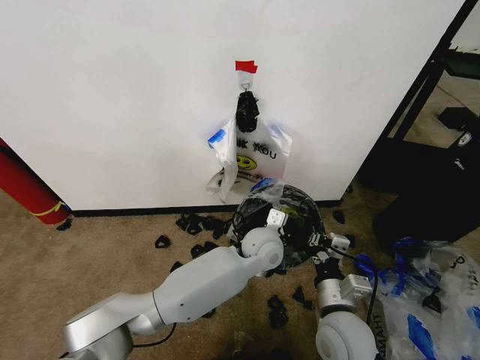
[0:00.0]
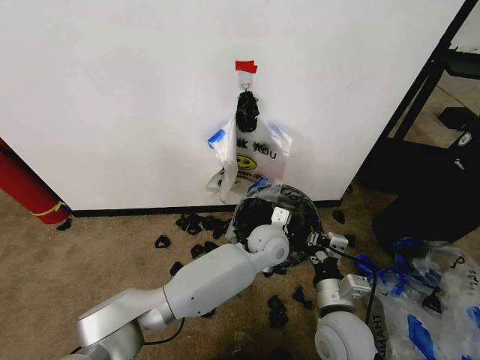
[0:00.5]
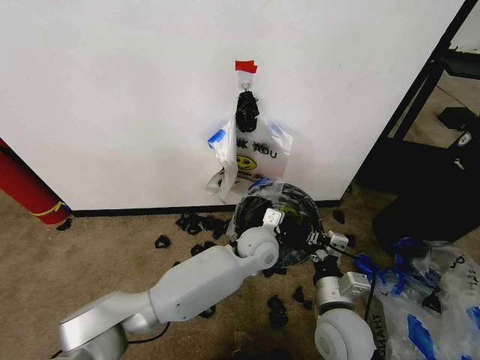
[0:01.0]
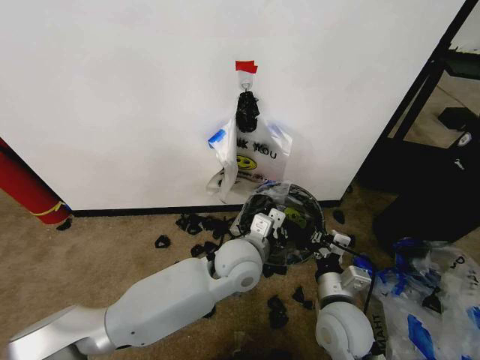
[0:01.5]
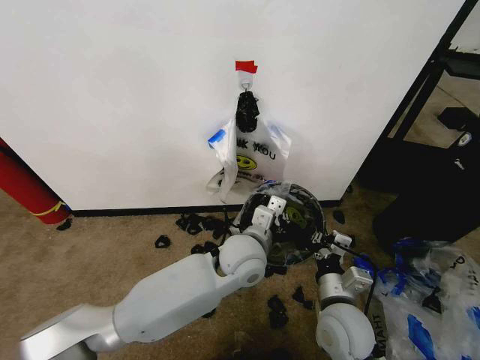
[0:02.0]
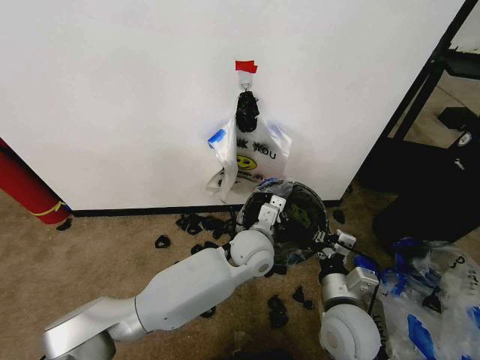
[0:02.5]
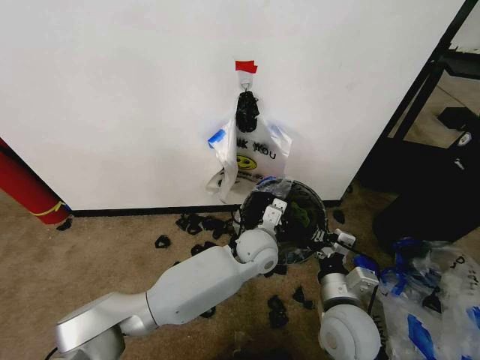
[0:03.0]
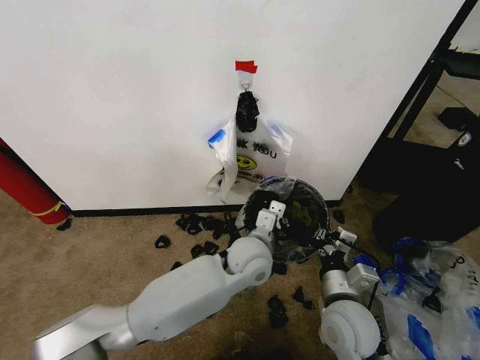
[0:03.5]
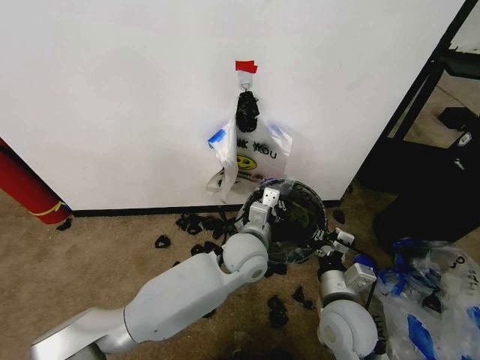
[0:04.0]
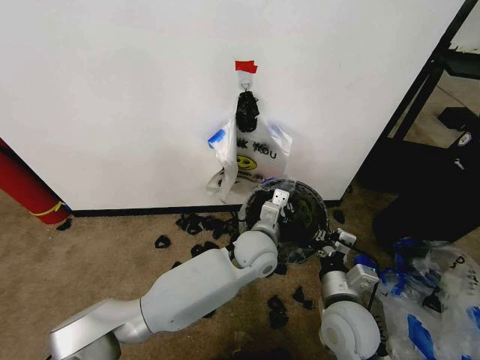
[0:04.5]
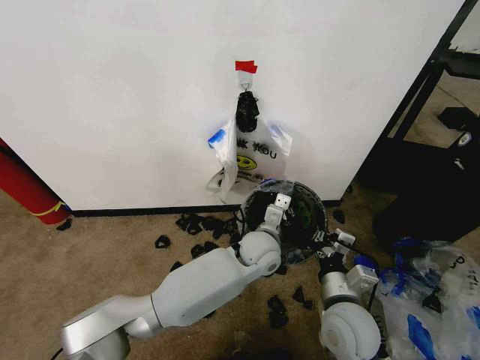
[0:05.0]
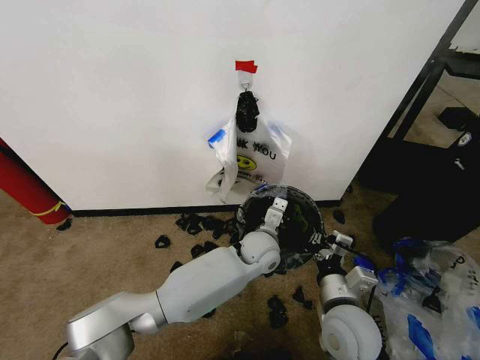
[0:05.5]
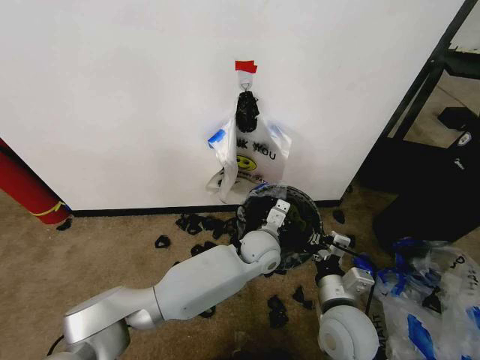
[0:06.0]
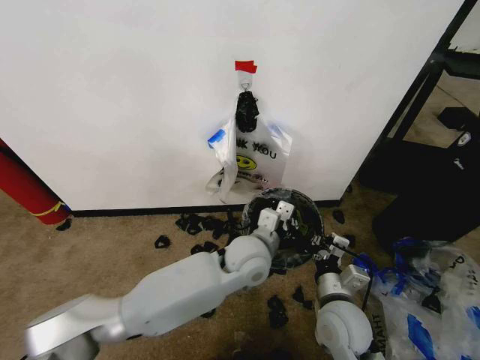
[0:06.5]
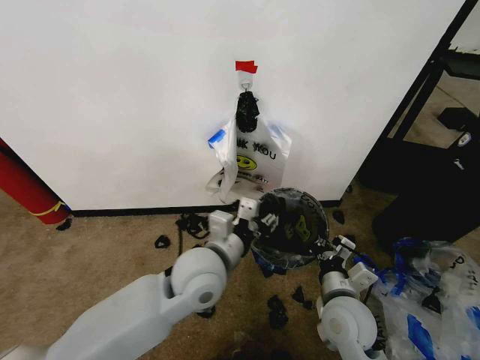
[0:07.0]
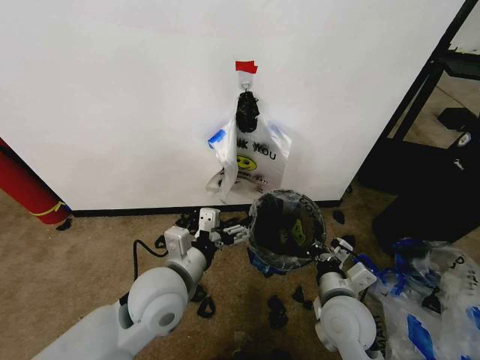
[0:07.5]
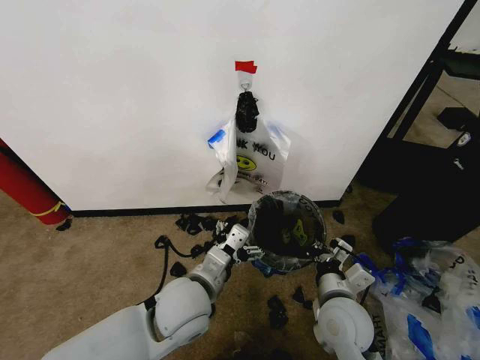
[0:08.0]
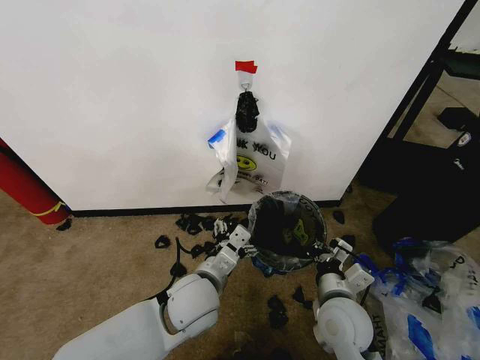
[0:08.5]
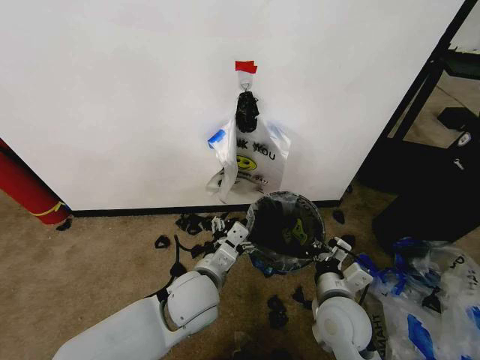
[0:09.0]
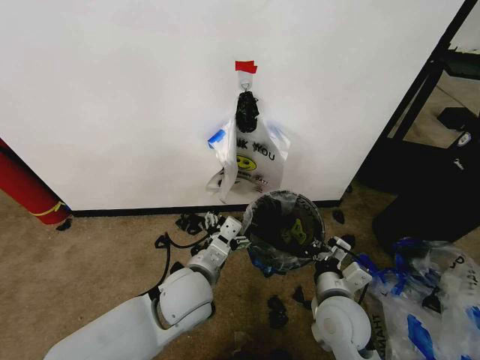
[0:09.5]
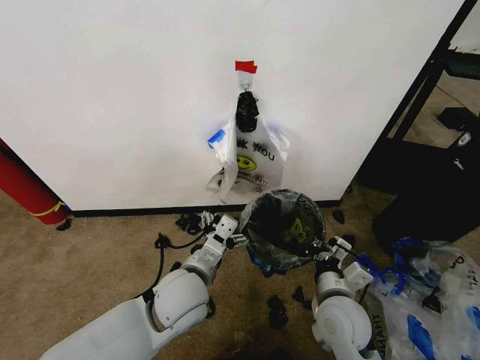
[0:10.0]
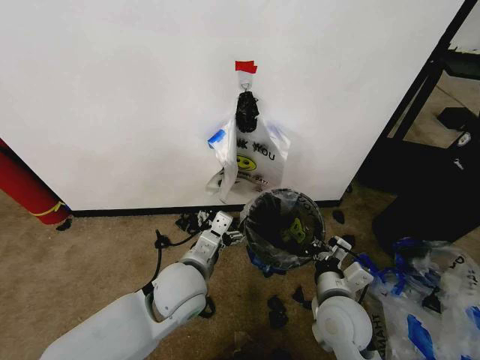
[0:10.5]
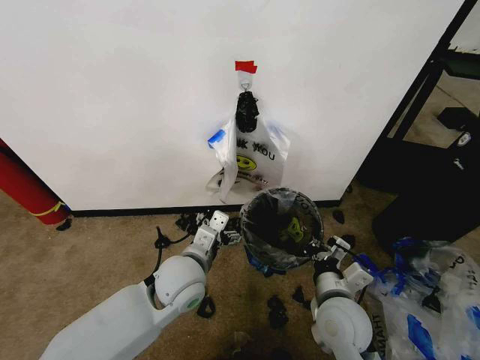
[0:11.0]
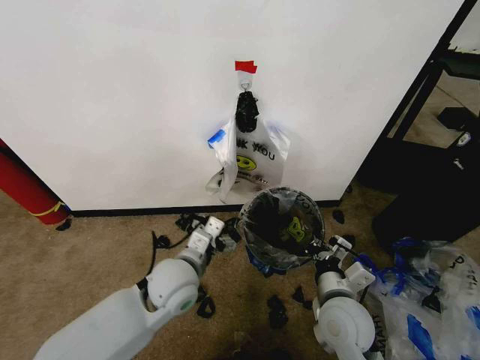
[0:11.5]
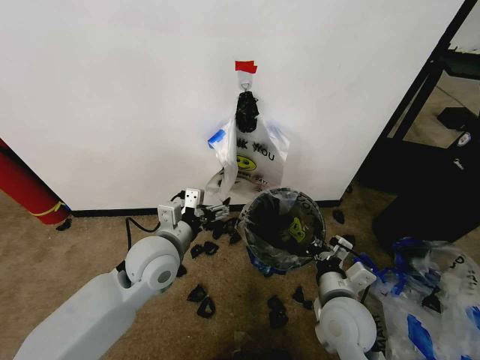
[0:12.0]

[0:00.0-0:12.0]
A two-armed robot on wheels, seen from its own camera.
Task of the whole recording: Pick up the garbage bag from the wall and place it over the trash bin.
0:00.0 to 0:02.0: The left gripper goes roughly 5 cm backward and to the left.
0:04.0 to 0:06.0: The left gripper heads downward, covering some 5 cm.
0:06.0 to 0:08.0: The left gripper moves backward, to the left and upward, about 25 cm, and opens up.
0:08.0 to 0:10.0: The grippers make only small movements.
0:10.0 to 0:12.0: The left gripper heads to the left and forward, covering some 10 cm.

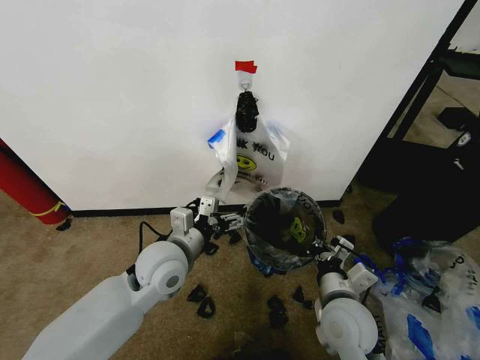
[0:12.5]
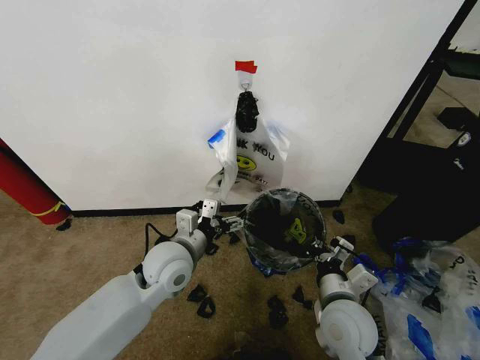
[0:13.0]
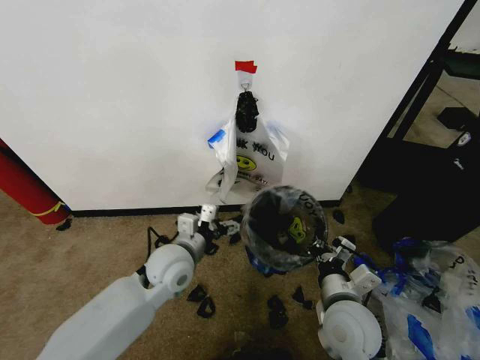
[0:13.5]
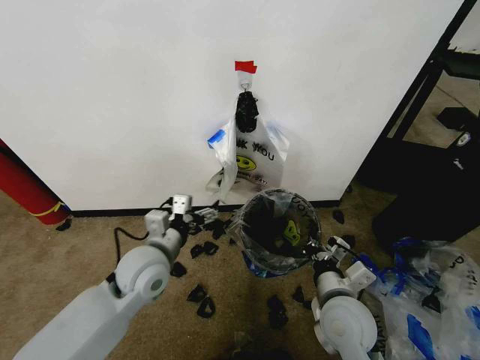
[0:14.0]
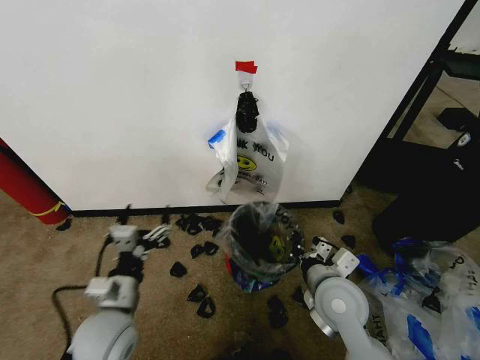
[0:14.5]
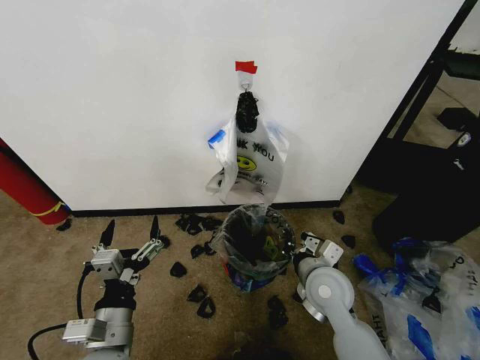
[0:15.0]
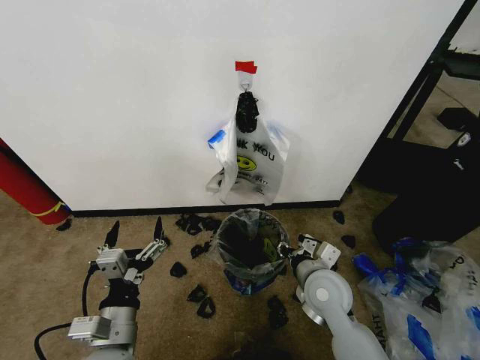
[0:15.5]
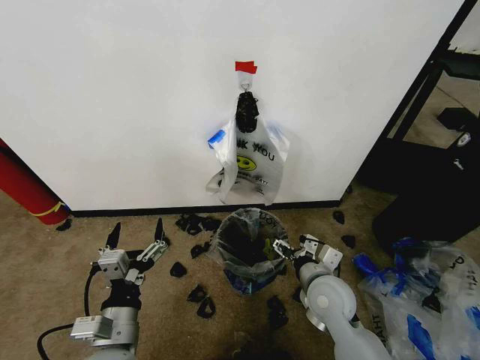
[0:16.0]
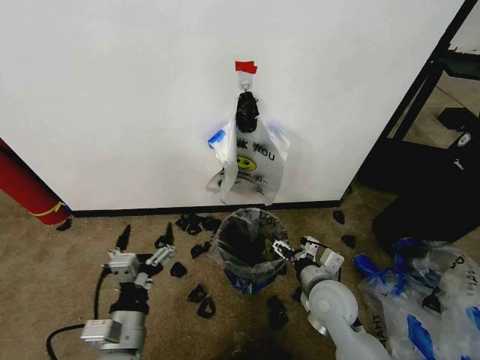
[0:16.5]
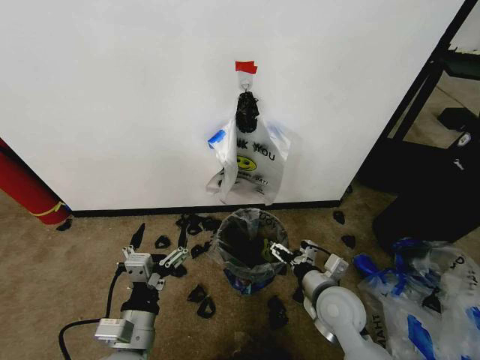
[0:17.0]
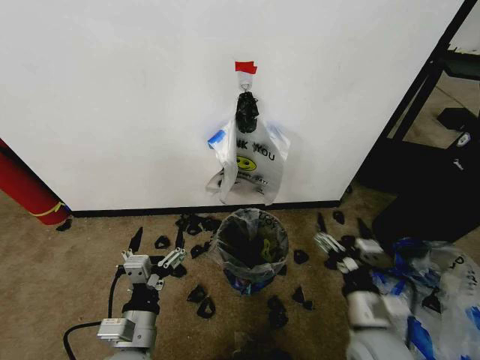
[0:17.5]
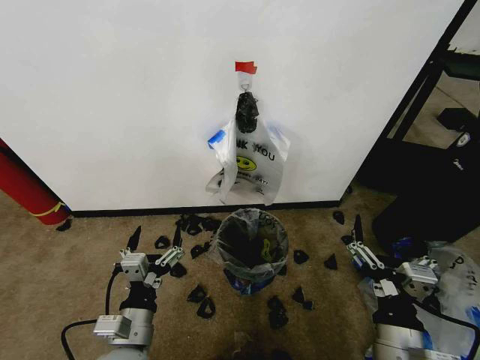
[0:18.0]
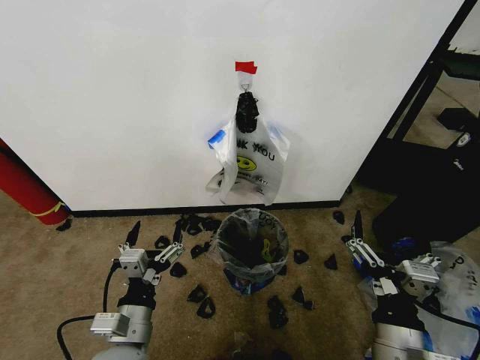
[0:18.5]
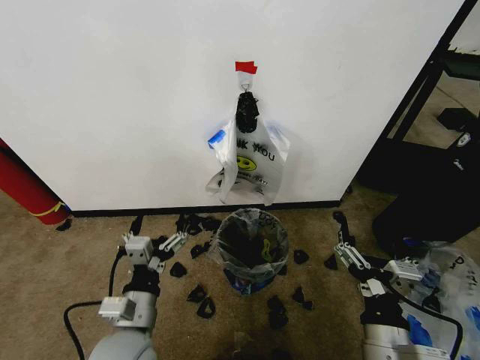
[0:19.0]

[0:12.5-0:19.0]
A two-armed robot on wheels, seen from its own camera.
Task of the whole recording: Pick up the garbage bag from the wall and place it over the trash bin.
0:12.5 to 0:14.5: The left gripper travels backward, to the left and downward by some 15 cm.
0:14.5 to 0:17.0: The right gripper is displaced downward by some 5 cm, and opens up. The left gripper heads backward and to the right, covering approximately 10 cm.
0:17.0 to 0:19.0: The right gripper goes approximately 15 cm backward and upward.

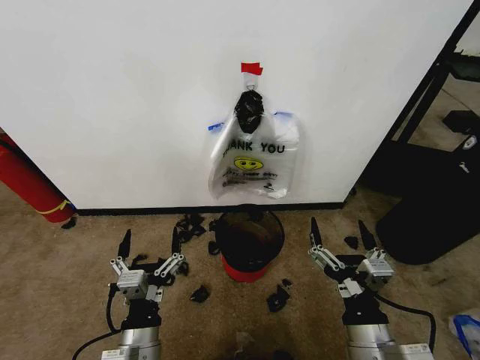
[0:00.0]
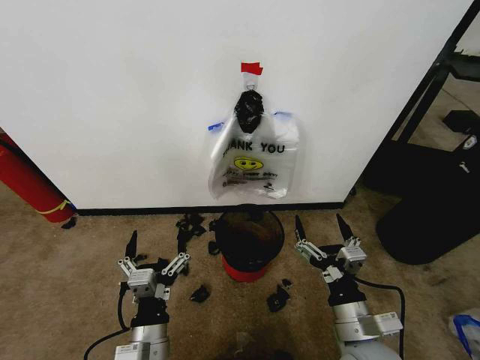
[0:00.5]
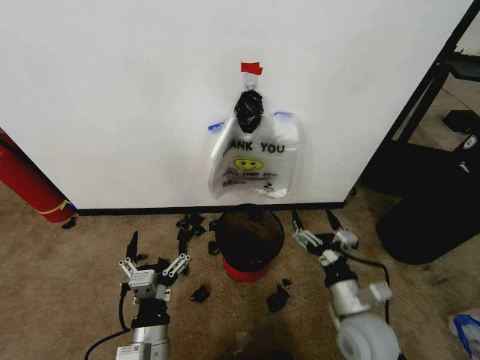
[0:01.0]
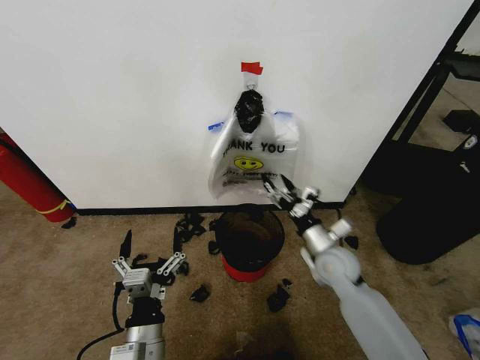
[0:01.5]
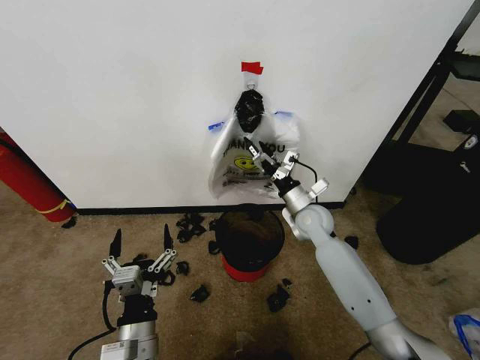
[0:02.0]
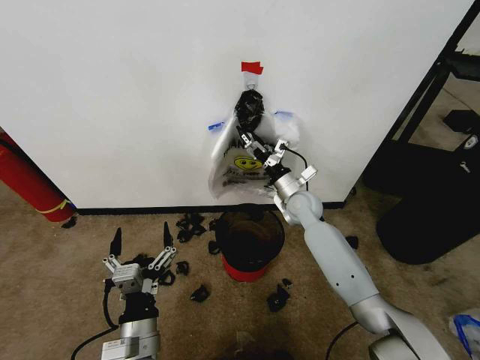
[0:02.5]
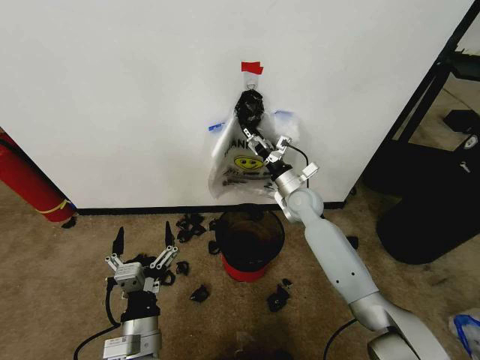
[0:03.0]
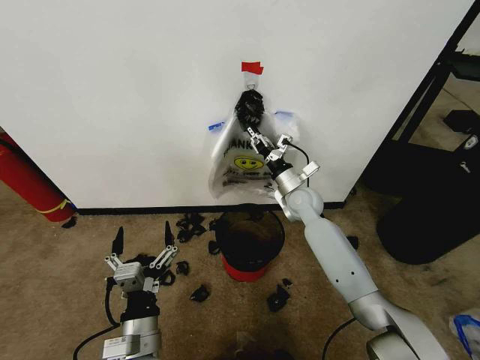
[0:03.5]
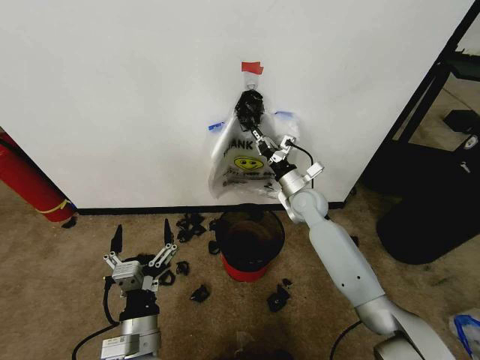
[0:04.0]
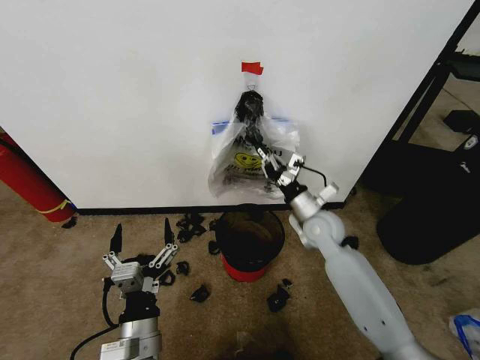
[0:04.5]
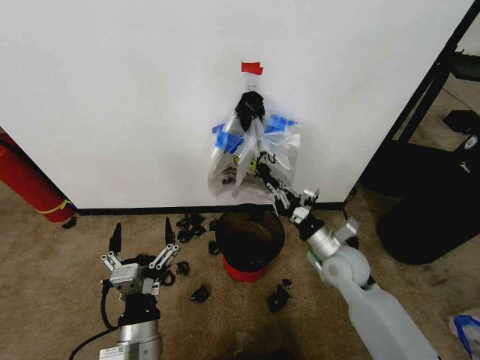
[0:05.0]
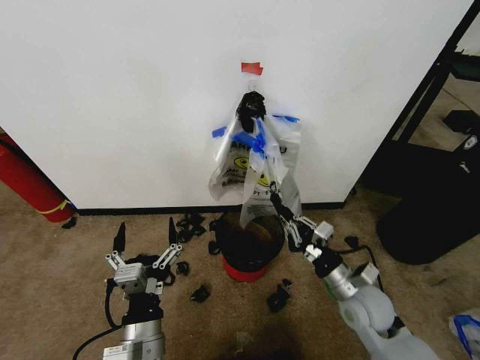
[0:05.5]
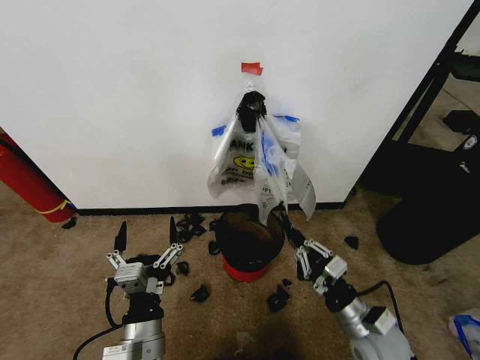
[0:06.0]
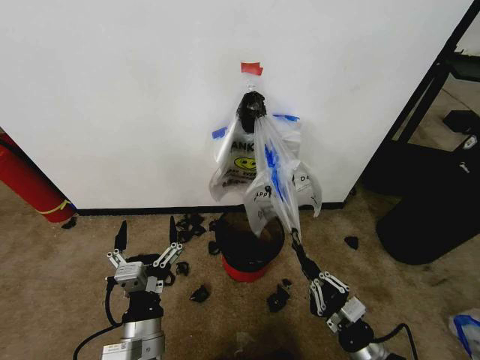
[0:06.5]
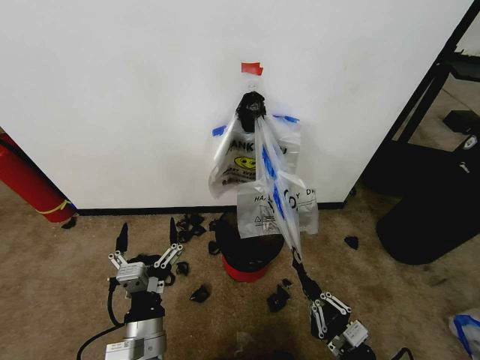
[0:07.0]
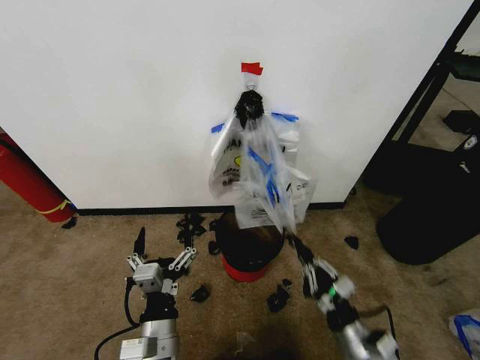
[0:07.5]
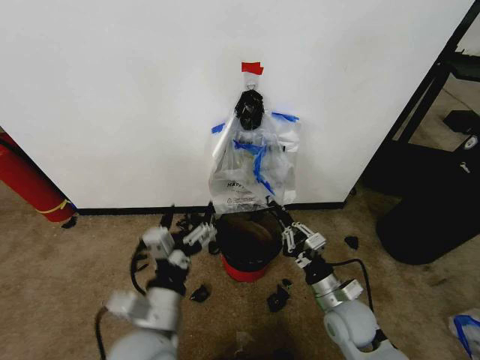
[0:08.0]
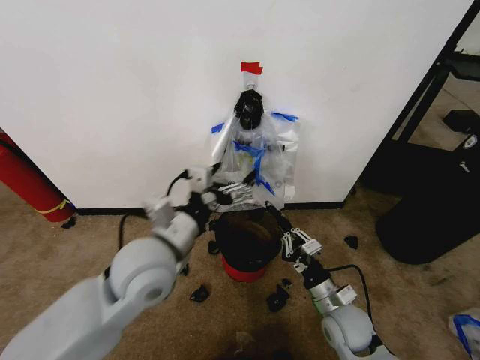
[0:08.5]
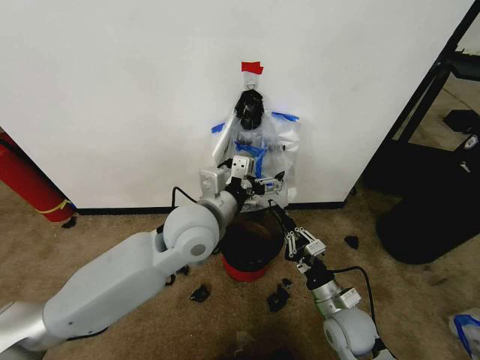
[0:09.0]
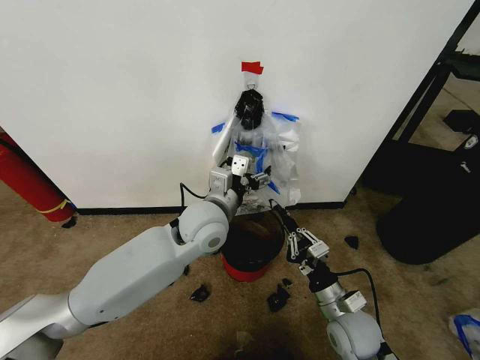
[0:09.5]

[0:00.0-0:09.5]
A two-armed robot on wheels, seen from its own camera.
Task of the whole recording: Pick up the garbage bag from the wall and place it over the trash bin.
0:02.0 to 0:04.0: The right gripper closes up.
0:04.0 to 0:05.5: The right gripper heads backward, covering approximately 25 cm.
0:05.5 to 0:07.5: The right gripper is displaced backward and downward by roughly 15 cm.
0:07.5 to 0:09.5: The left gripper shifts approximately 25 cm forward and upward; the right gripper heads forward, covering some 5 cm.
